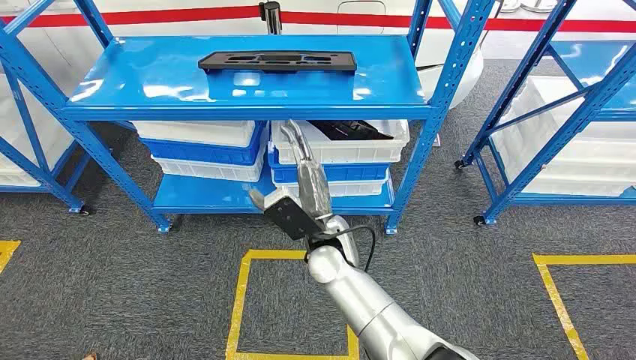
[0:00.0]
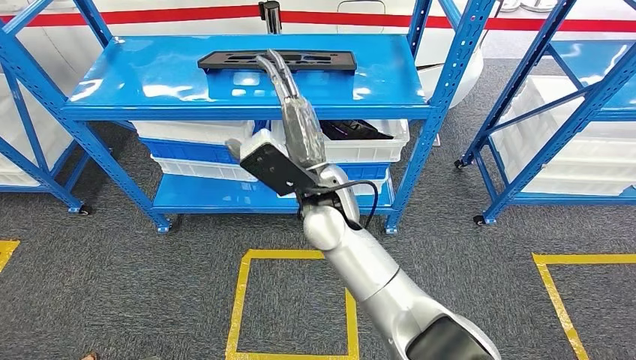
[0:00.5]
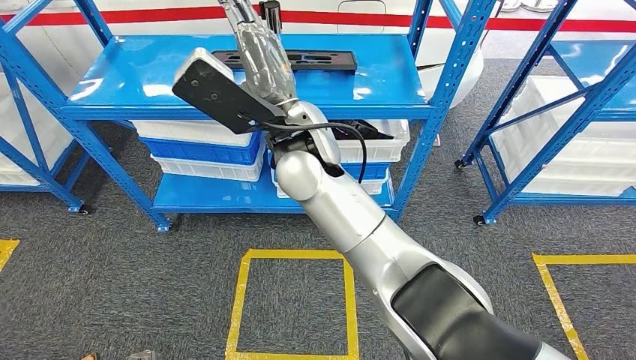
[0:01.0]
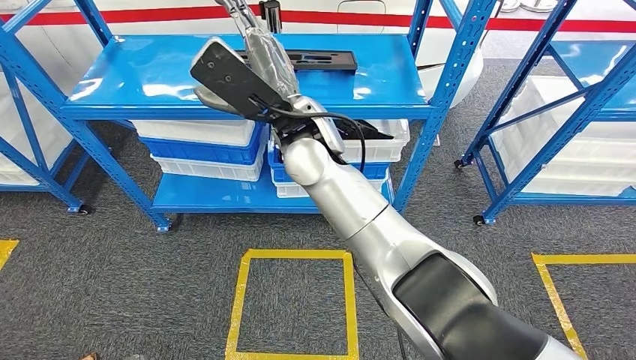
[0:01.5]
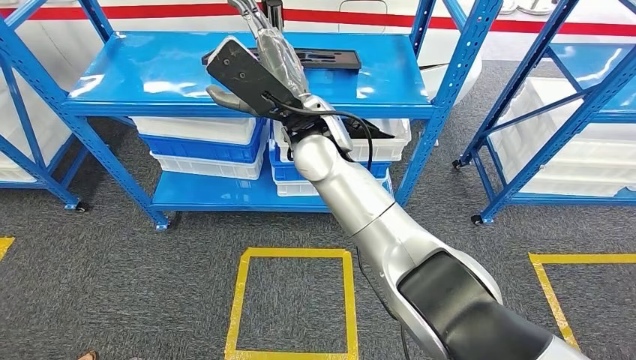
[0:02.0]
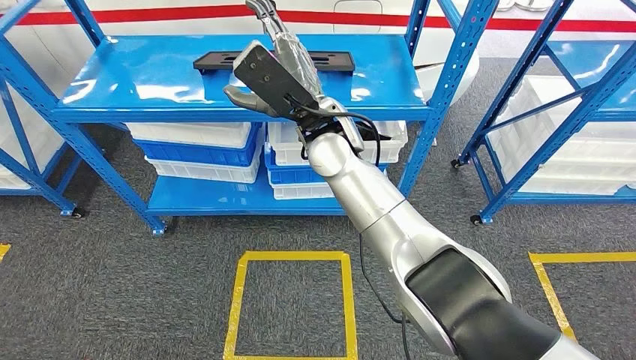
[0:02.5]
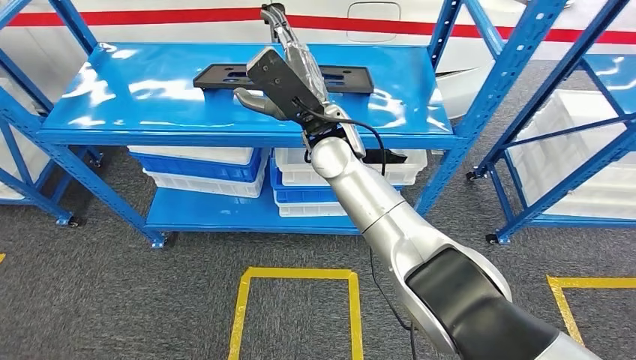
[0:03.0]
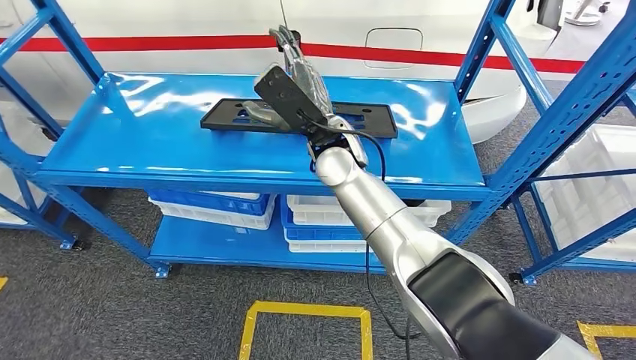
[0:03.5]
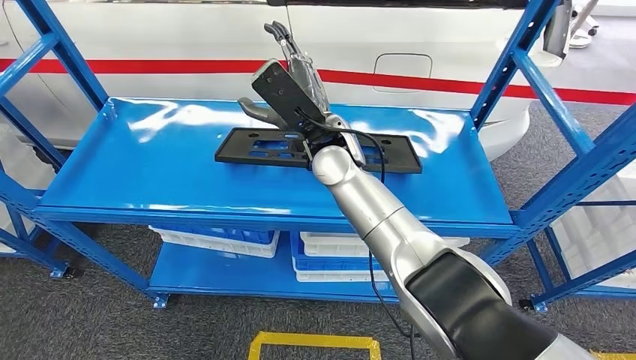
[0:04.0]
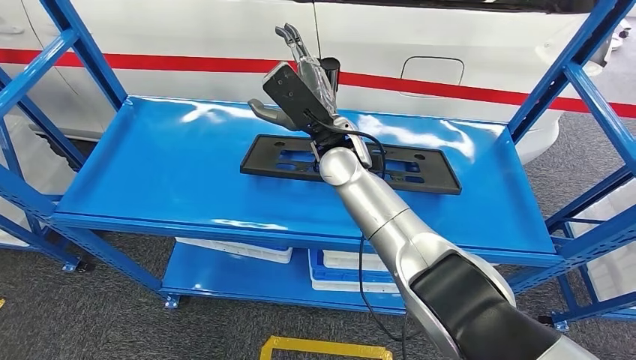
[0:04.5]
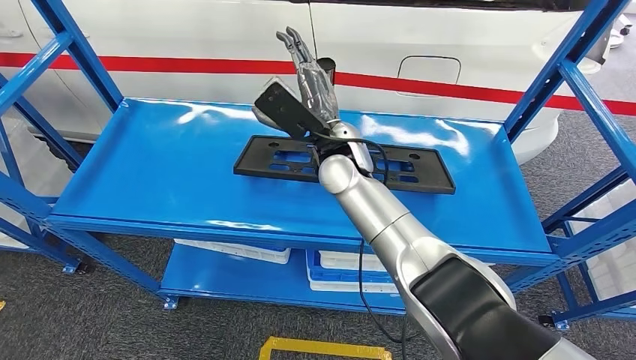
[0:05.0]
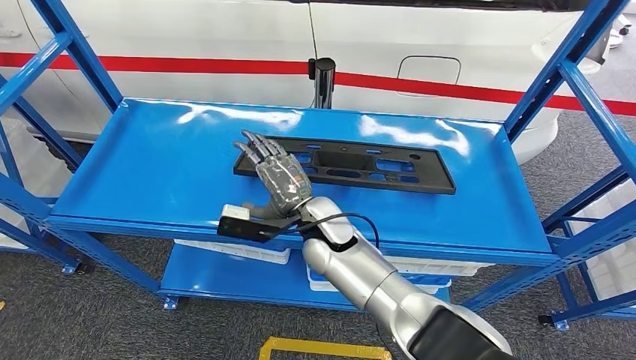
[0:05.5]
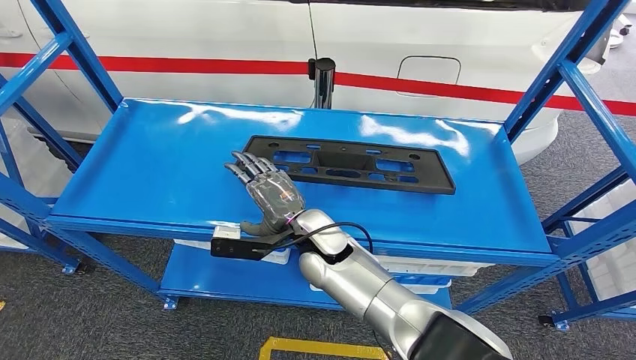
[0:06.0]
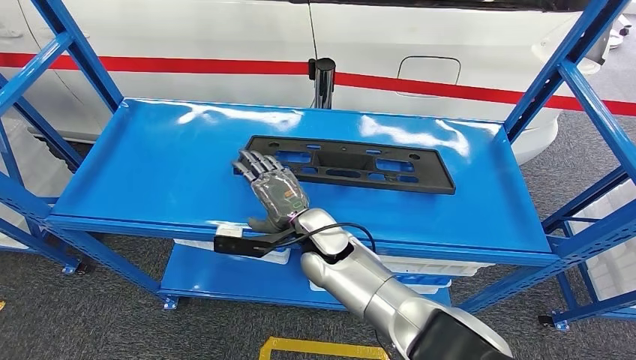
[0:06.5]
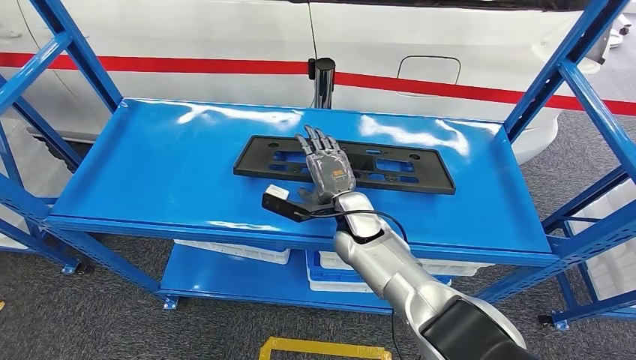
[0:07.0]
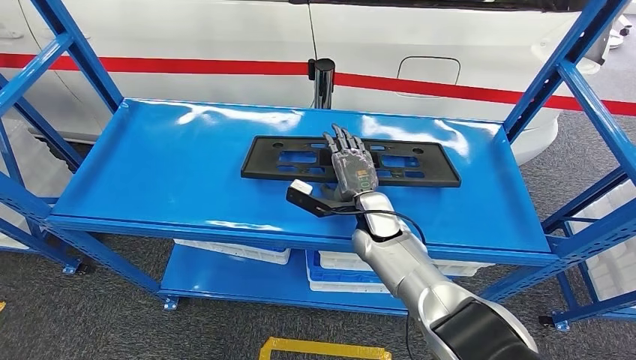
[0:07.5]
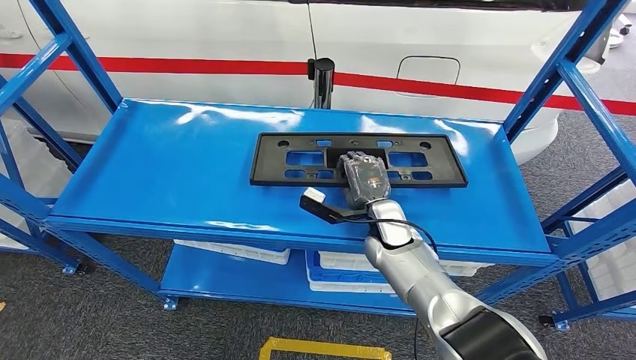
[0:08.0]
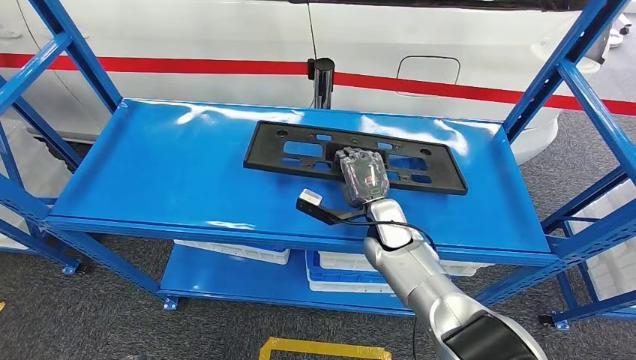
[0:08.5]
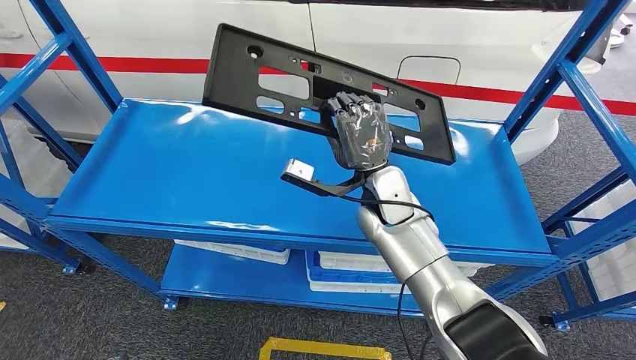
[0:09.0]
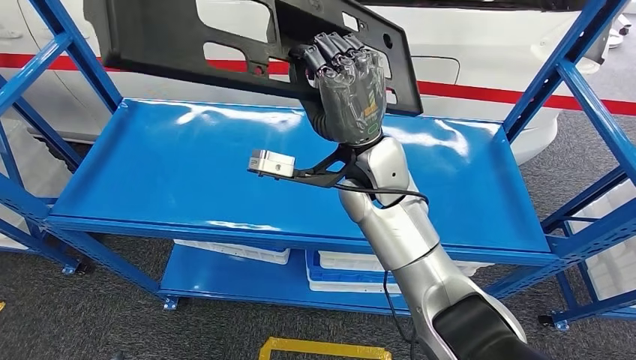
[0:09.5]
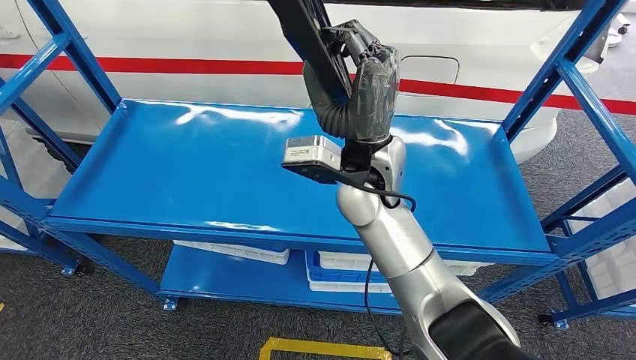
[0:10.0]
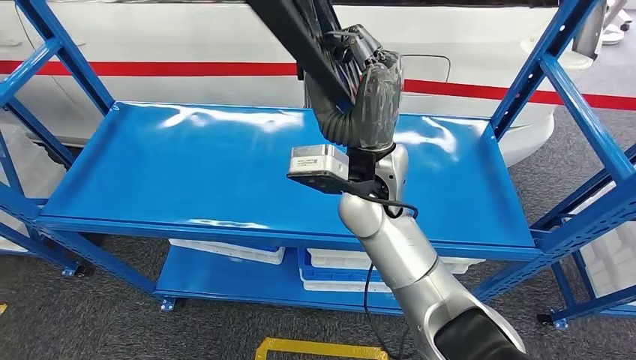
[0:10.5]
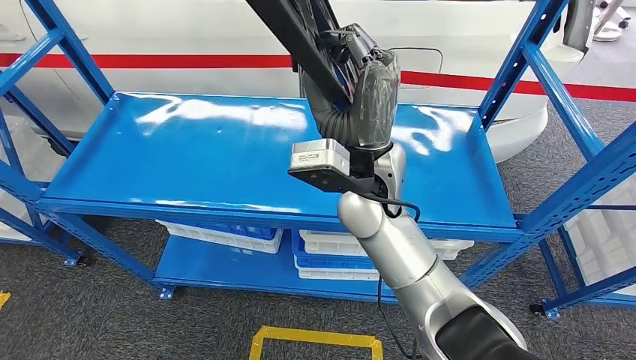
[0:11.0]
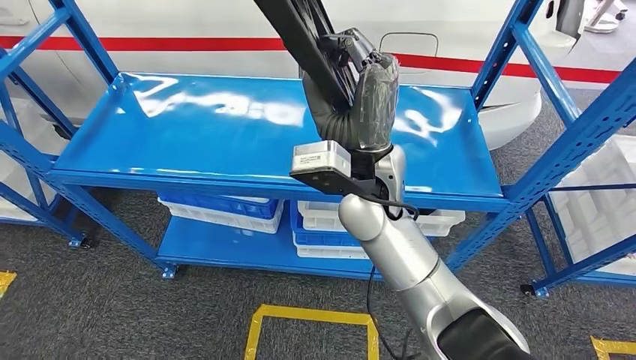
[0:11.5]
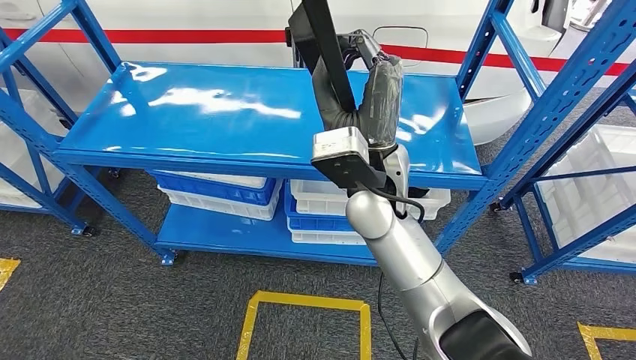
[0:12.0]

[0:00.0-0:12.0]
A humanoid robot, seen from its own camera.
0:06.0 to 0:08.0: The right hand moves to the right, roughly 15 cm.
0:08.0 to 0:10.0: The right hand goes roughly 20 cm upward.

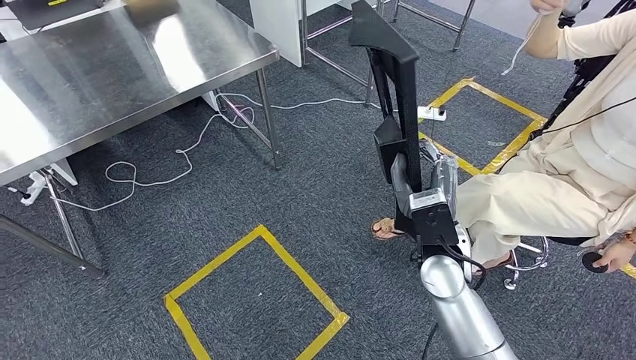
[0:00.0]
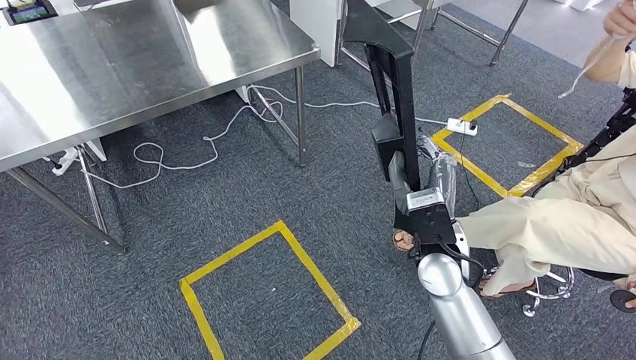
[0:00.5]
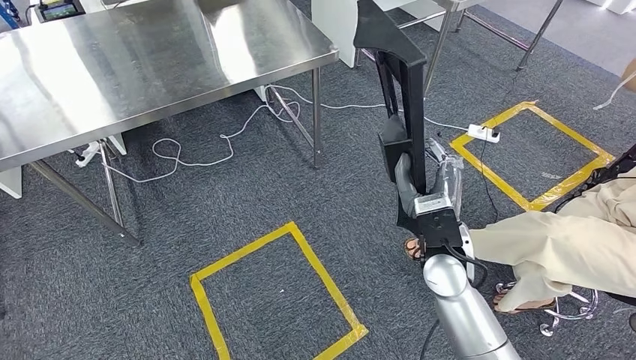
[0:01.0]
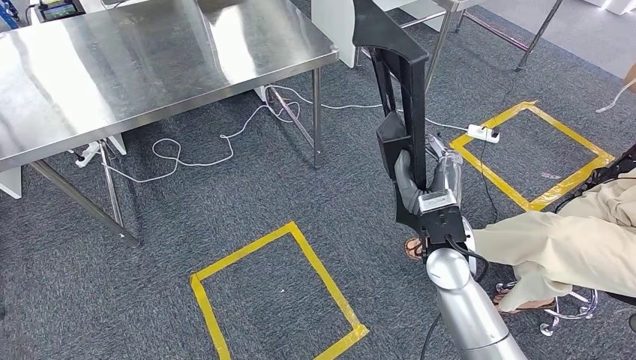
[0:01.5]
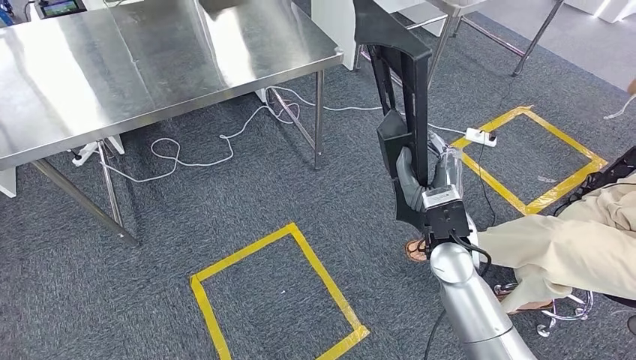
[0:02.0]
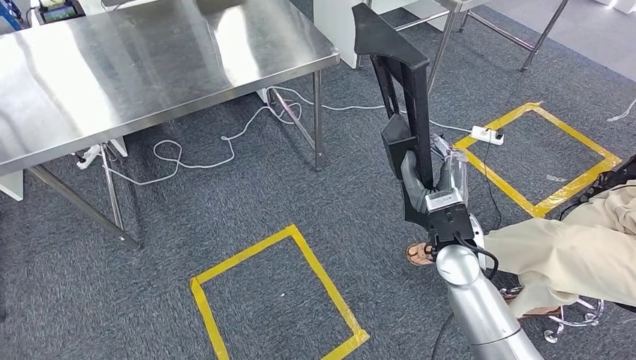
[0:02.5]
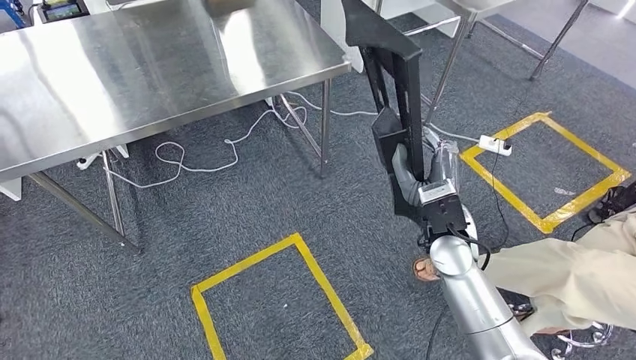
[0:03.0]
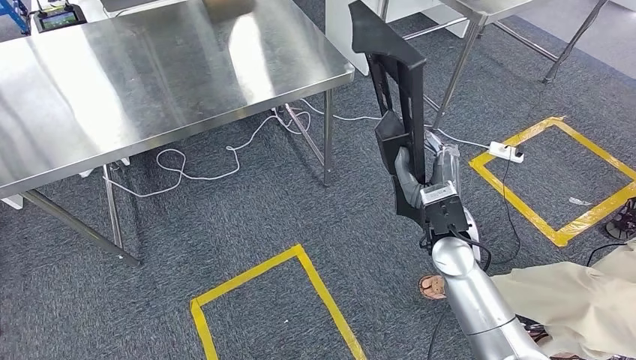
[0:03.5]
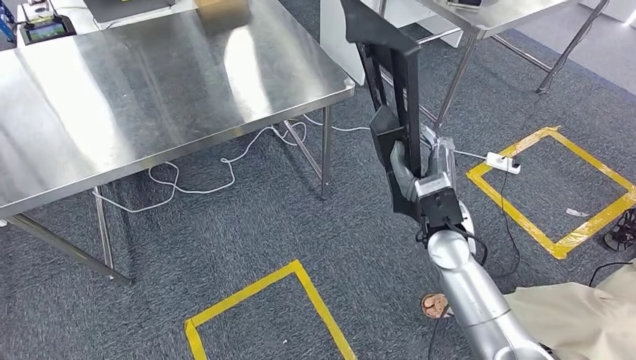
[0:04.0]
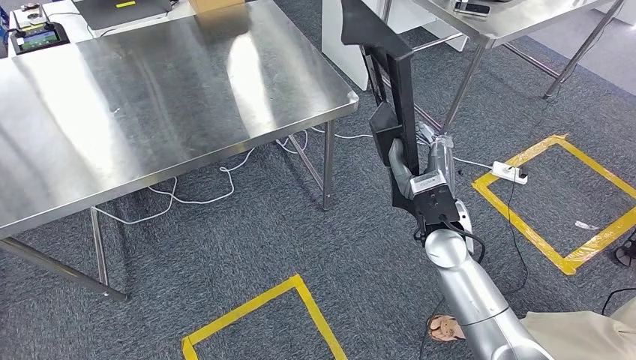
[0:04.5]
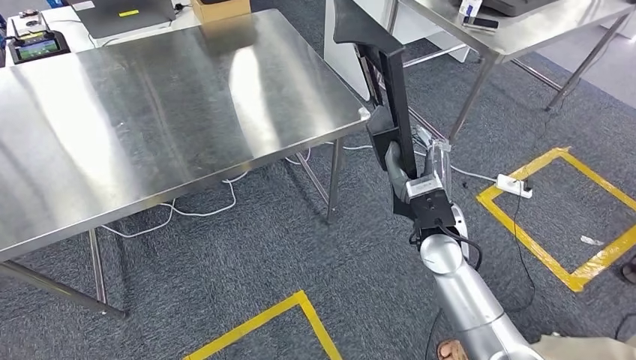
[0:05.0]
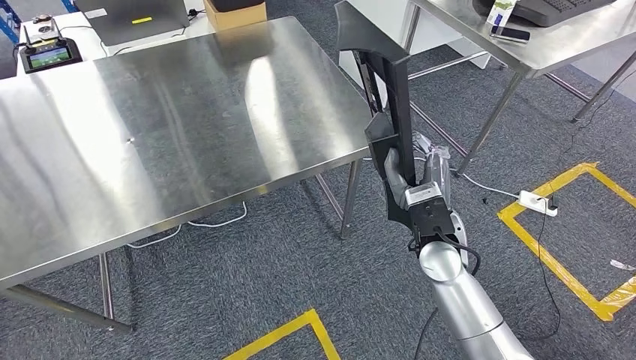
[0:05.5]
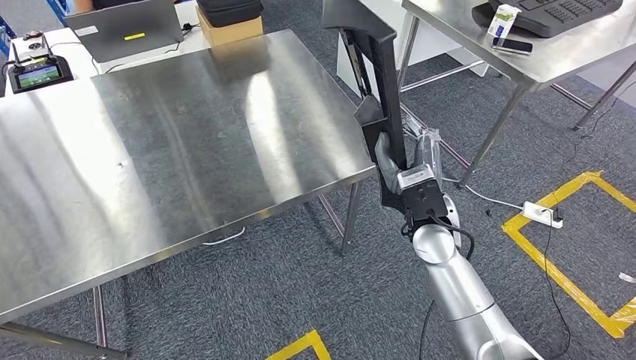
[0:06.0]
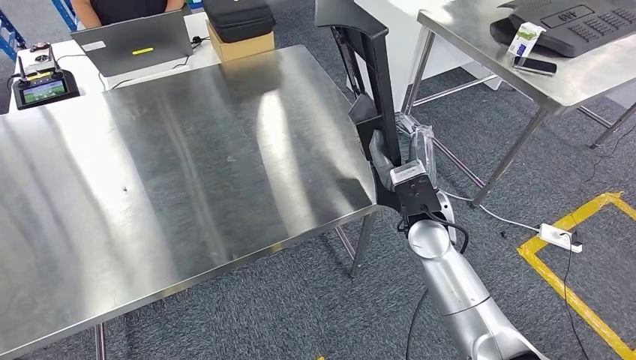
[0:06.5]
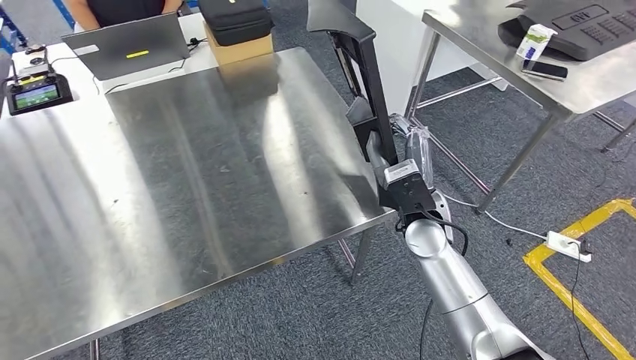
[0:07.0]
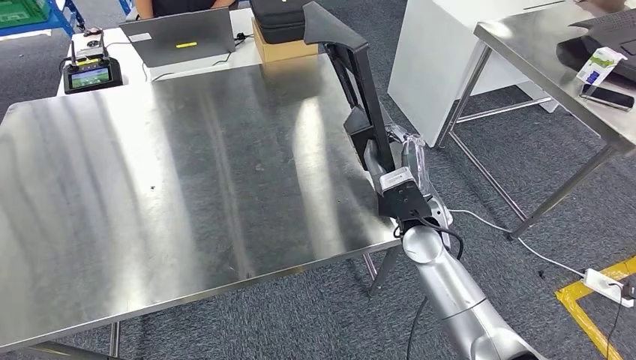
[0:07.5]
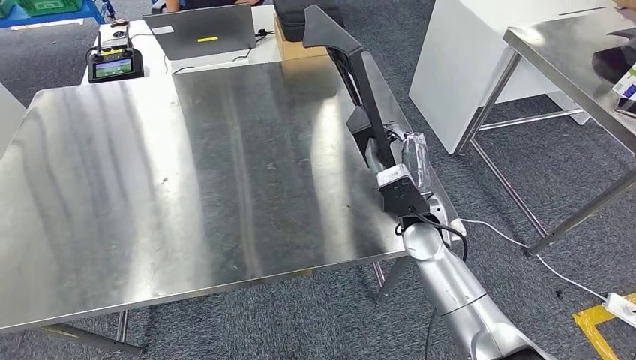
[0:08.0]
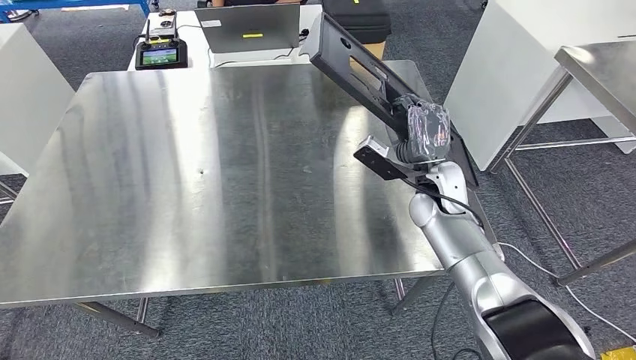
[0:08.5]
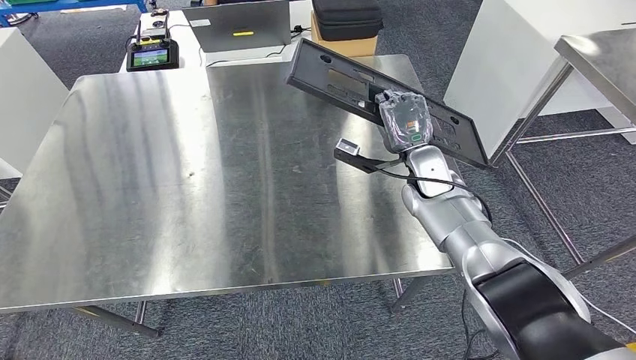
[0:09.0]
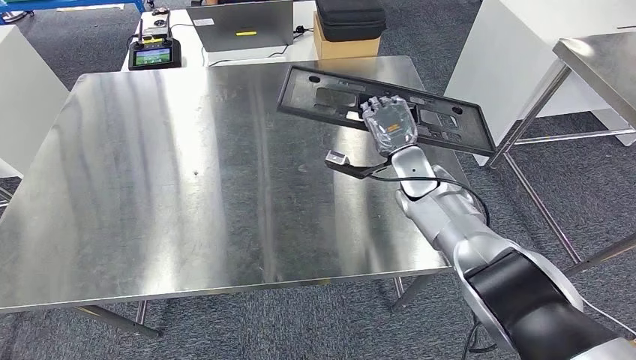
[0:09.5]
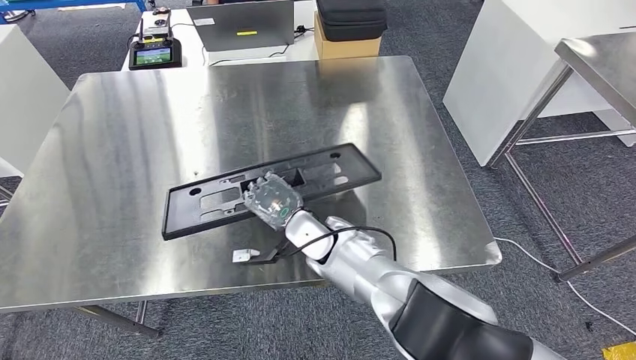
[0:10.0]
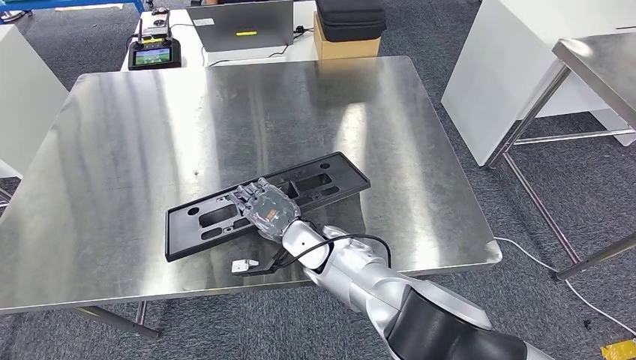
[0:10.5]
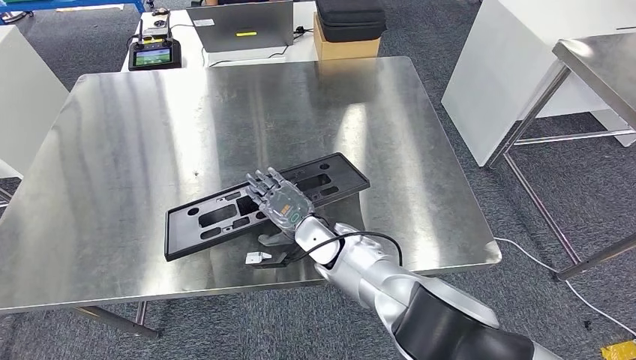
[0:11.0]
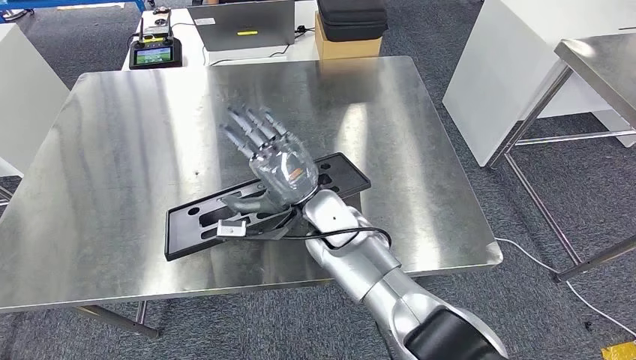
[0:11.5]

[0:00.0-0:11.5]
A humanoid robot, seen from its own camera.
Step, 0:00.0 to 0:06.0: Move the large material to the workbench.
